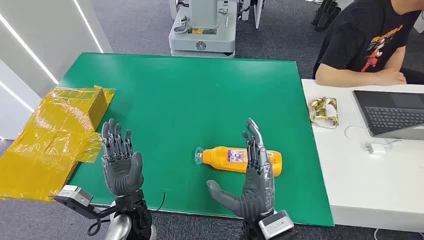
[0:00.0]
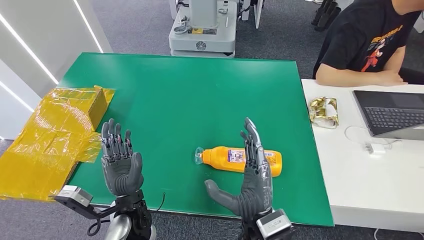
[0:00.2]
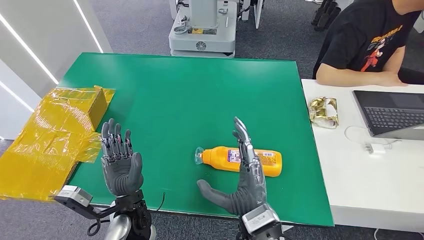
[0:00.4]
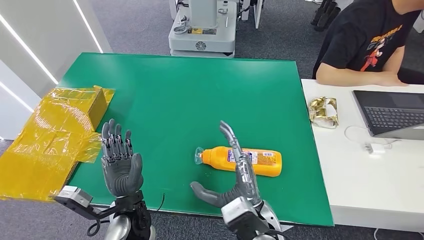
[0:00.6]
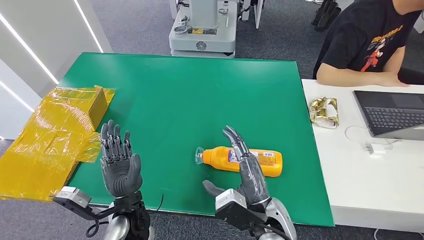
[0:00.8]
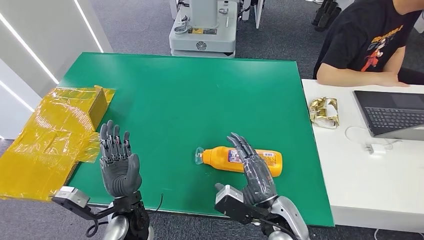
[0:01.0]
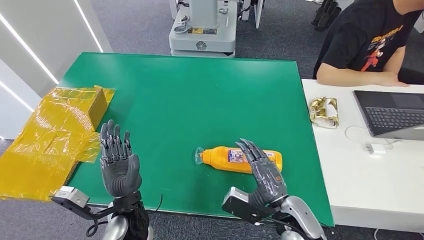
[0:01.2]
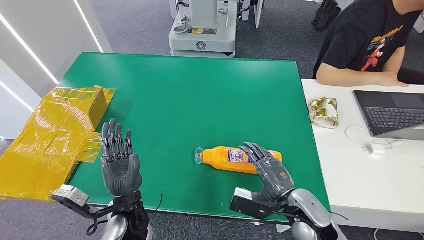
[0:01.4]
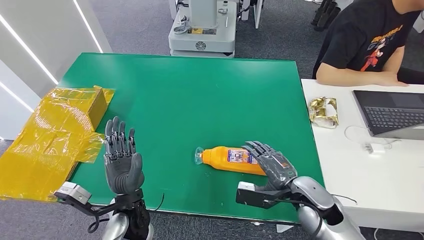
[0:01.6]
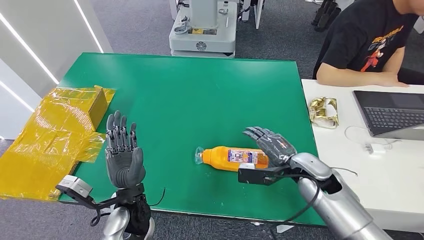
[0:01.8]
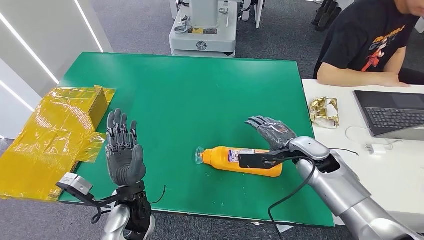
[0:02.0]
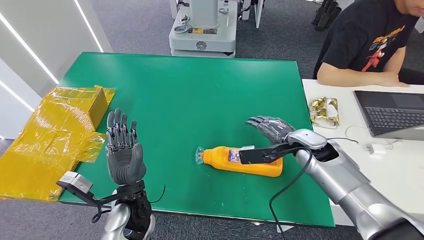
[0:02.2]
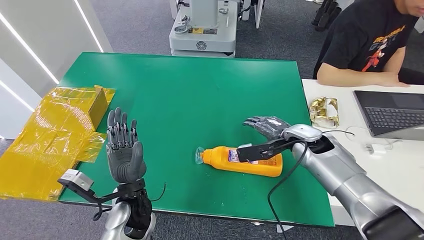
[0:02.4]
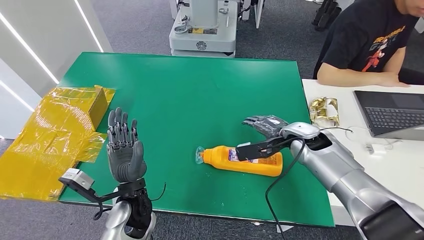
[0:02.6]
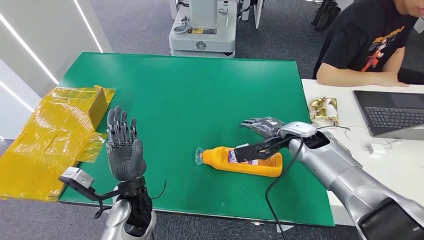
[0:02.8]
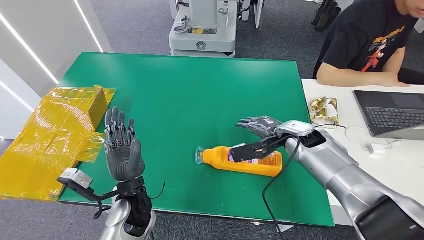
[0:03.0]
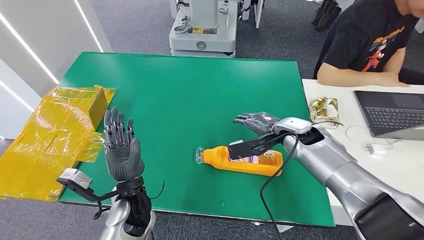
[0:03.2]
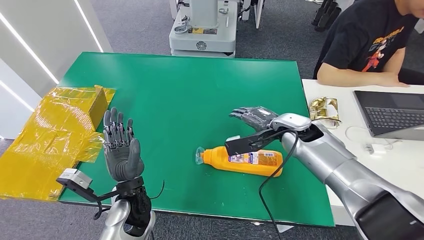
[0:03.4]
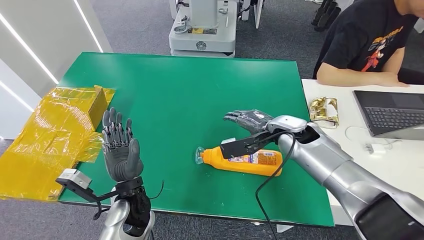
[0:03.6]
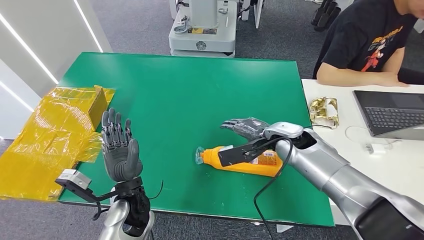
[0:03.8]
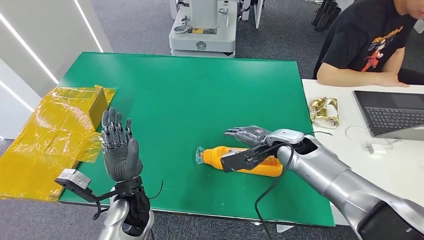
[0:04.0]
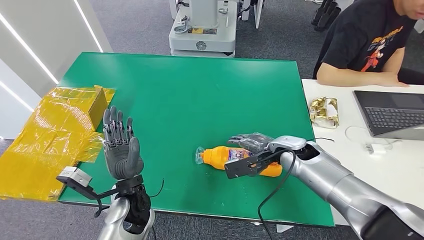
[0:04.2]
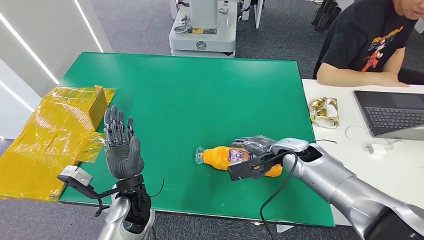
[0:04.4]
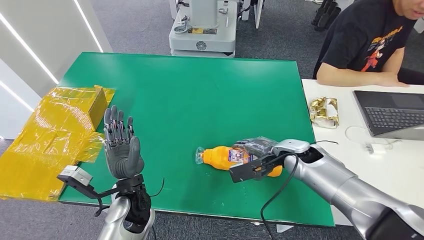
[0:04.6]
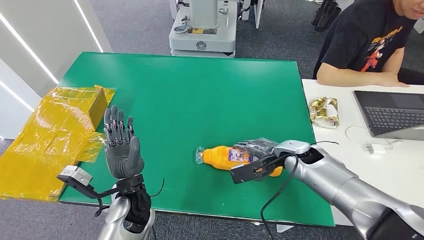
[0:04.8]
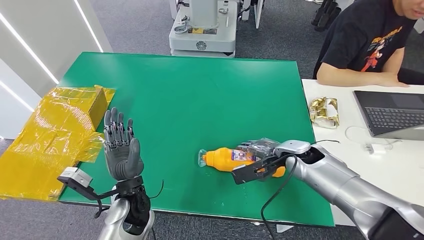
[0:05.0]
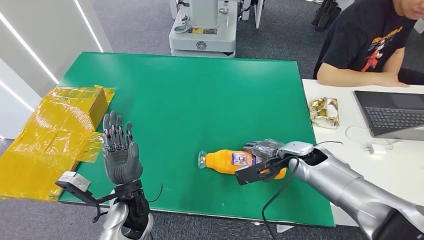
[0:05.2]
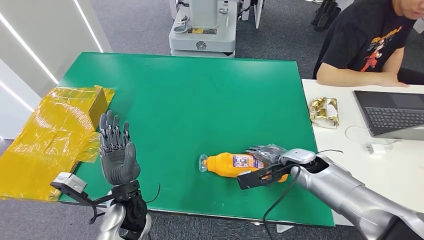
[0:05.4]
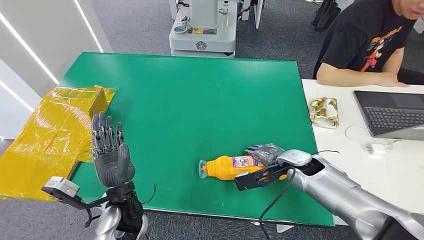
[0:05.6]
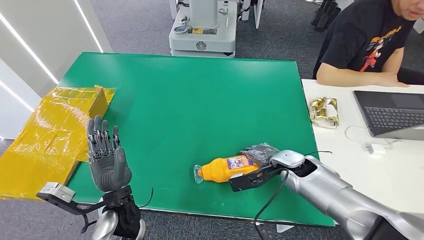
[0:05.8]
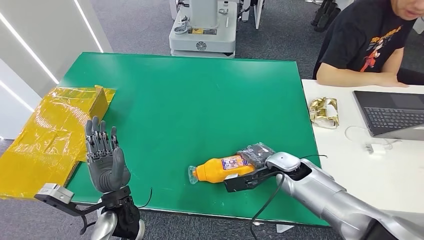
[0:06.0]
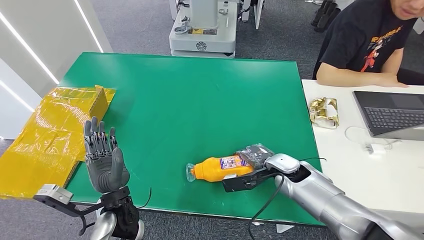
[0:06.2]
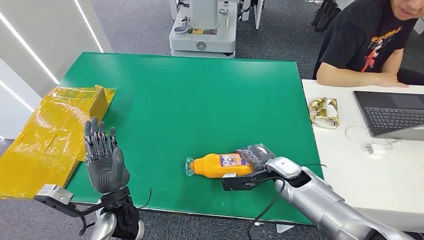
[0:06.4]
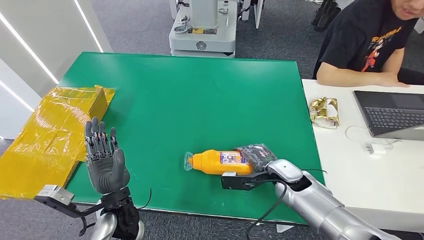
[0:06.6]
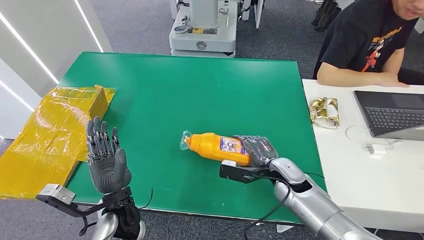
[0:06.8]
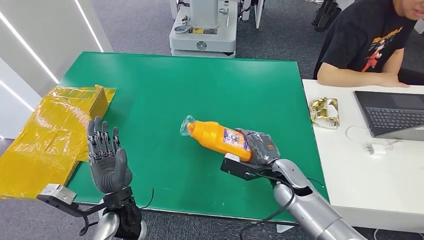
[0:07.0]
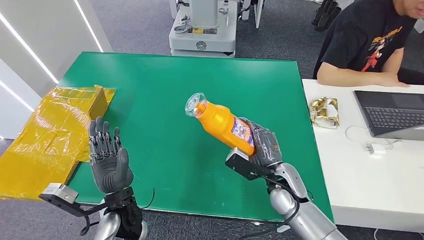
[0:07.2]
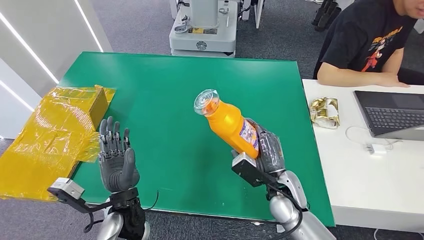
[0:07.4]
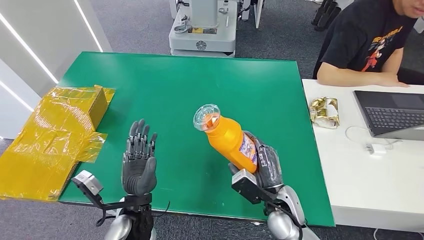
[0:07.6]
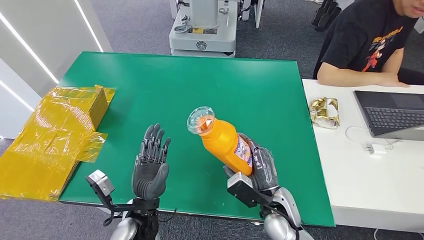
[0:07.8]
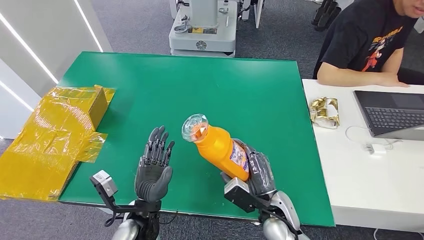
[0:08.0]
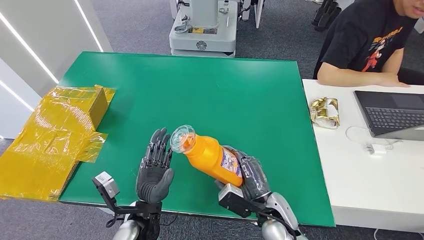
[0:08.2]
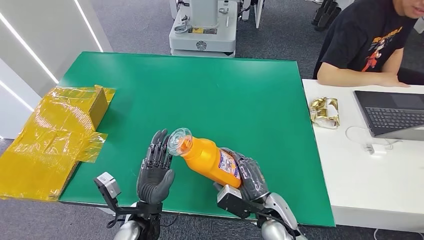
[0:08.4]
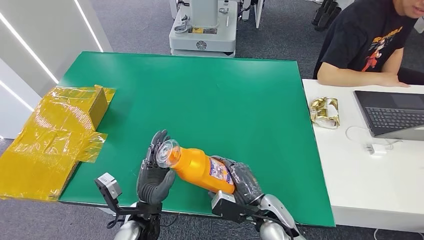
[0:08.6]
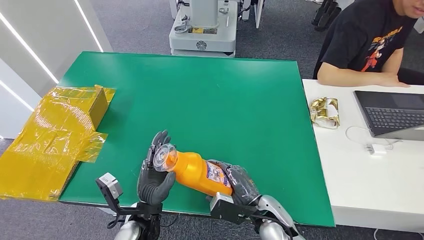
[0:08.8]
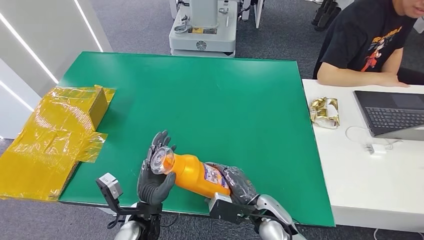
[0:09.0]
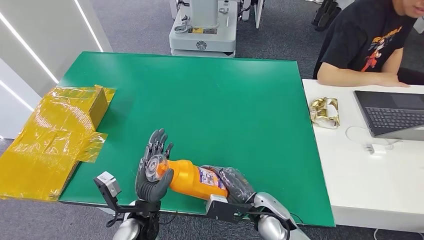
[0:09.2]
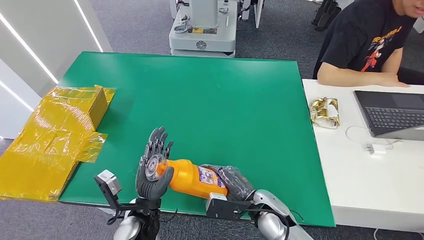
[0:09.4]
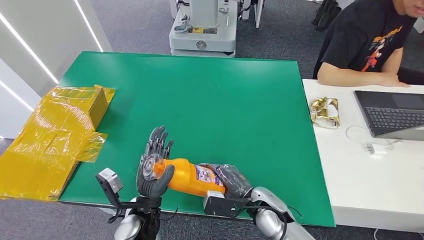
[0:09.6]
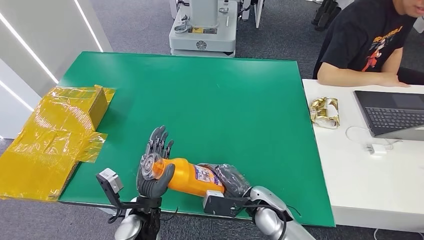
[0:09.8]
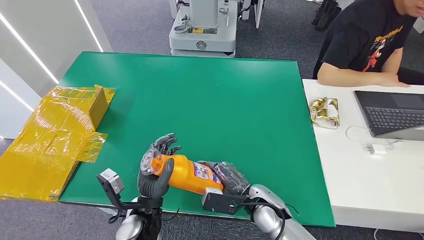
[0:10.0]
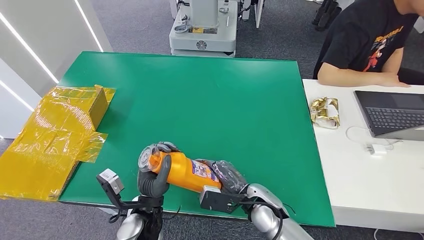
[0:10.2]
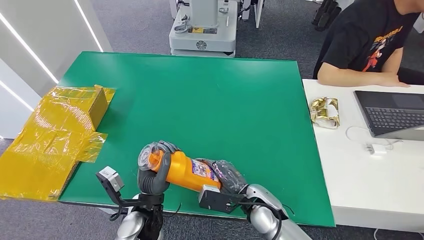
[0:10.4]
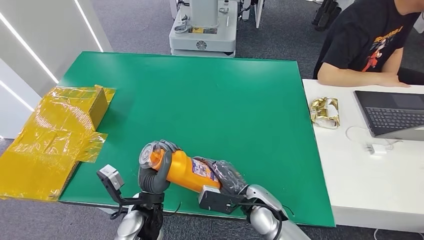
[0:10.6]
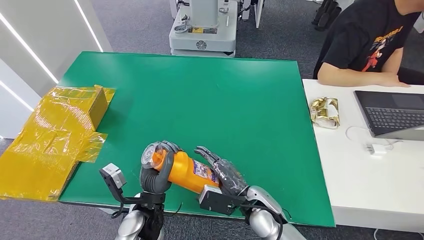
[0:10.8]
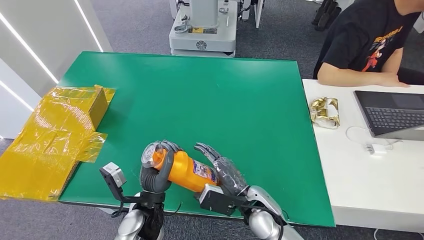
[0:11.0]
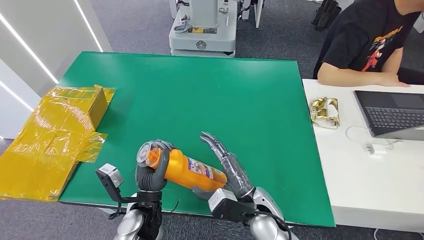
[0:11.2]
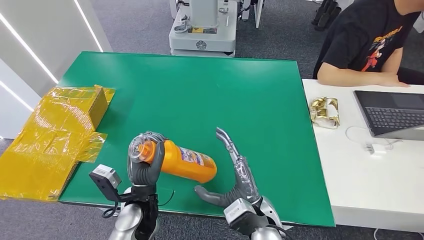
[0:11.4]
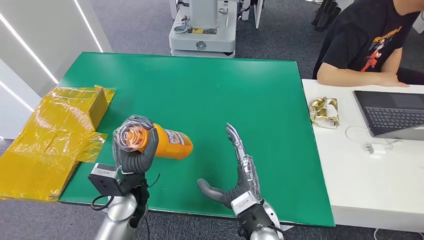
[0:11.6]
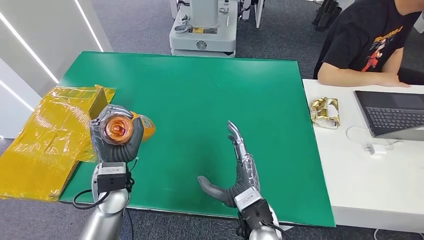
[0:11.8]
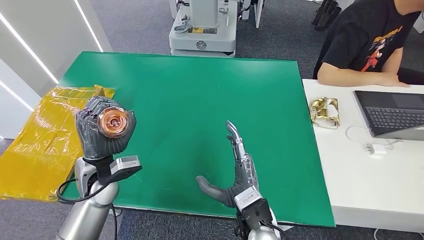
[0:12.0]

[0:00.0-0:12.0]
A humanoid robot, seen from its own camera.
Step, 0:00.0 to 0:07.8: Pick up the bottle from the table.
0:01.6 to 0:03.0: The right hand moves forward and upward, roughly 15 cm.
0:03.0 to 0:04.4: There are only small adjustments of the hands.
0:04.4 to 0:06.0: The right hand ends up about 5 cm from where it was.
0:06.0 to 0:07.6: The right hand travels backward by some 10 cm.
0:09.0 to 0:10.4: The hands move only a little.
0:10.4 to 0:12.0: The left hand goes some 15 cm to the left, forward and upward. The right hand goes approximately 5 cm backward.

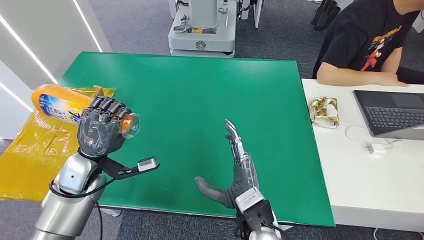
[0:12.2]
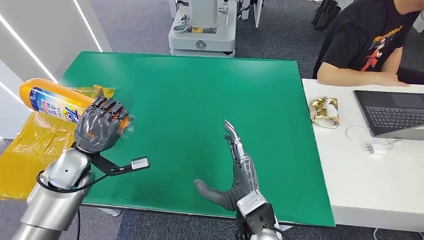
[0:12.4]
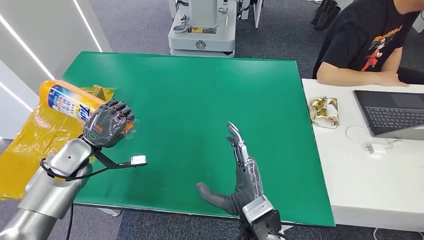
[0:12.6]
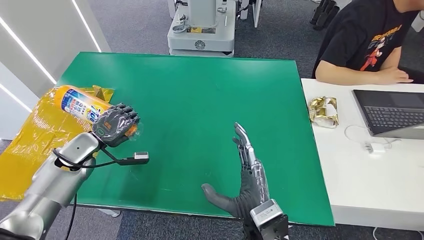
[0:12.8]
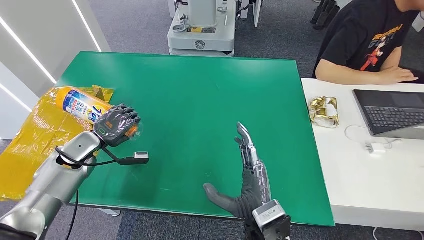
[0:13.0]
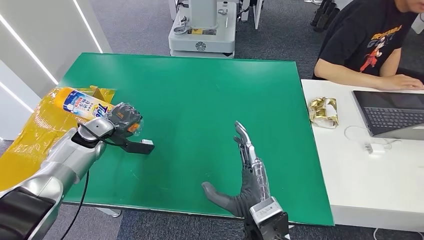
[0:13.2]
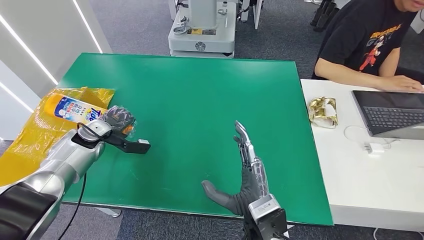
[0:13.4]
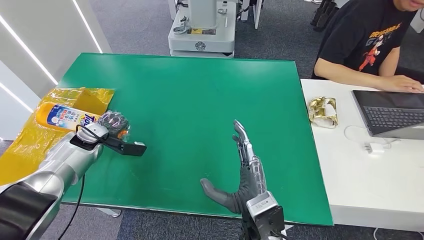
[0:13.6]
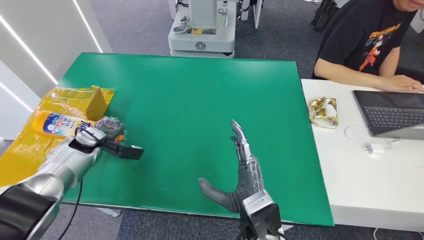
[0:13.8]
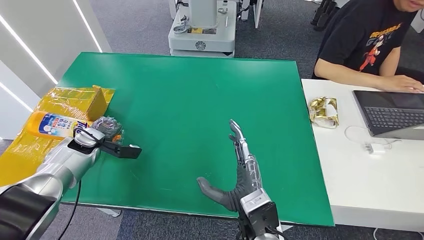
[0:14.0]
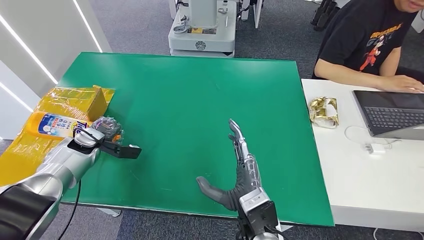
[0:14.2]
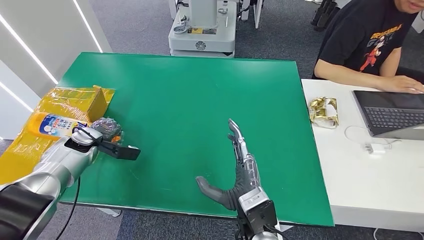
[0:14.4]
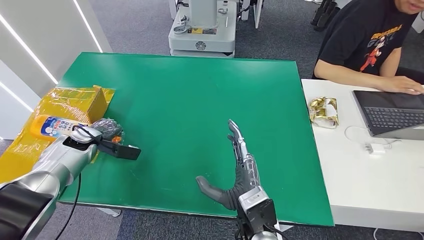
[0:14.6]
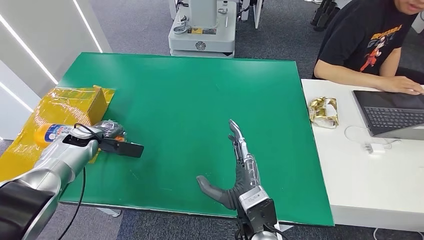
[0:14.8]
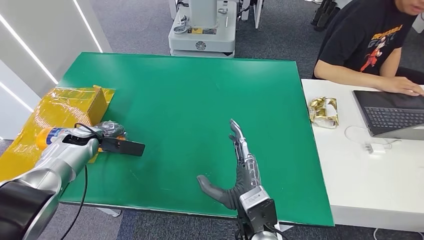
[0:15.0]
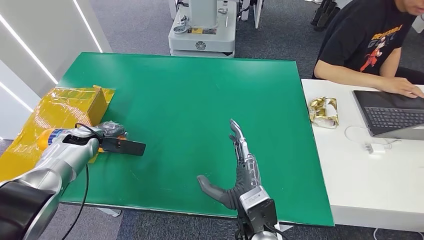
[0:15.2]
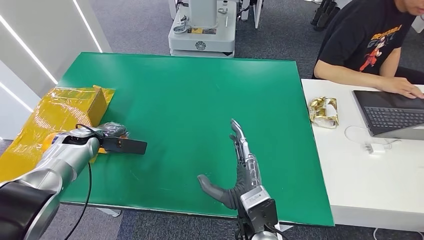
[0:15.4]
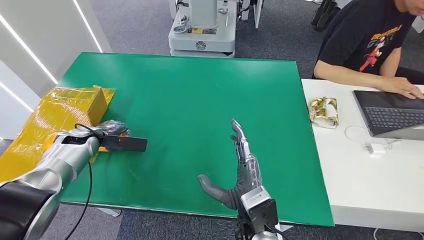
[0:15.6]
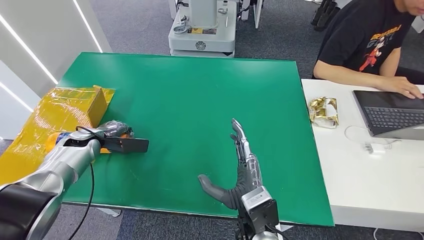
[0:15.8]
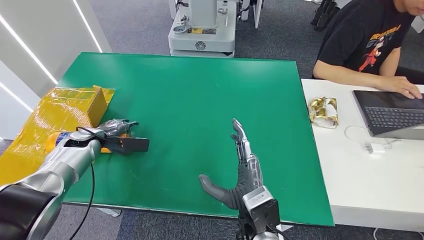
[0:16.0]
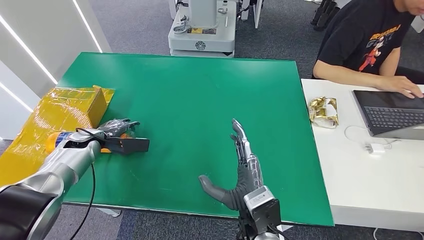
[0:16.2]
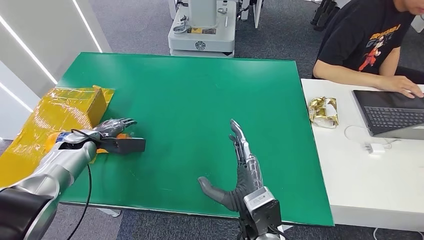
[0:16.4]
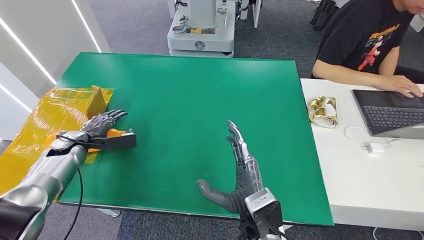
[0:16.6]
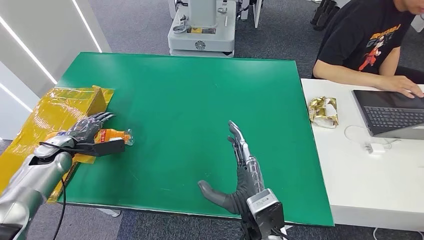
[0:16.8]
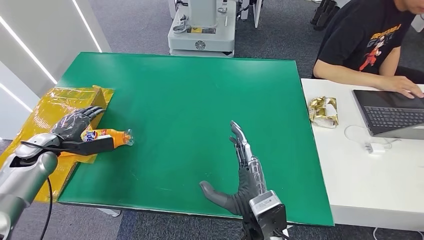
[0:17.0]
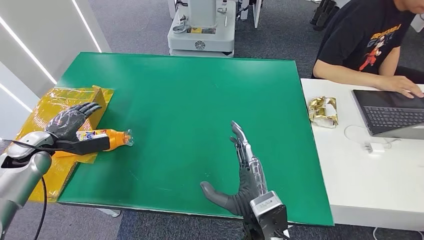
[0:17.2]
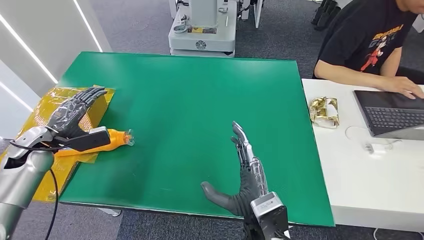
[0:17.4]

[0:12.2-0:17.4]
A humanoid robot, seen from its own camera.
Step, 0:12.2 to 0:17.2: Turn the bottle to the front side.
0:12.2 to 0:14.0: The left hand is displaced to the left, forward and downward by roughly 15 cm.
0:15.6 to 0:17.4: The left hand shifts some 10 cm backward and upward.
